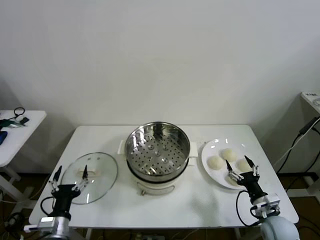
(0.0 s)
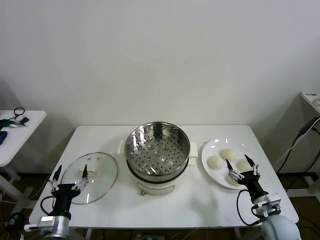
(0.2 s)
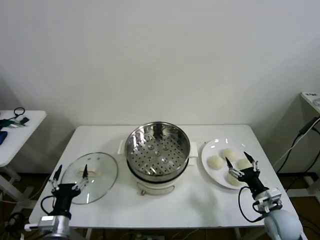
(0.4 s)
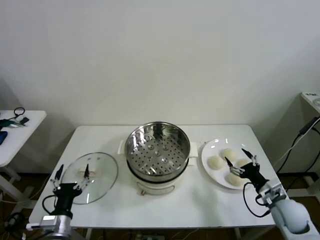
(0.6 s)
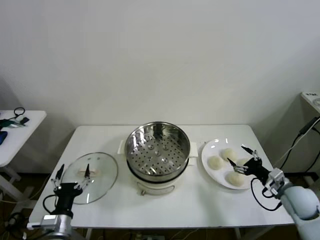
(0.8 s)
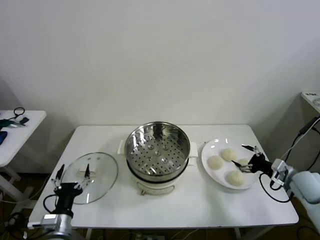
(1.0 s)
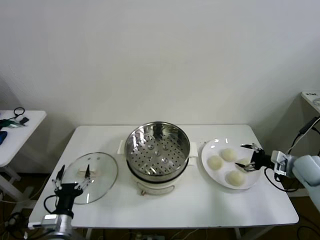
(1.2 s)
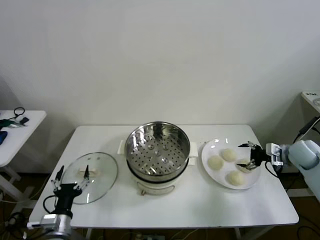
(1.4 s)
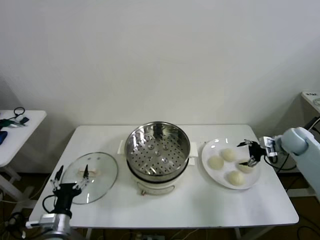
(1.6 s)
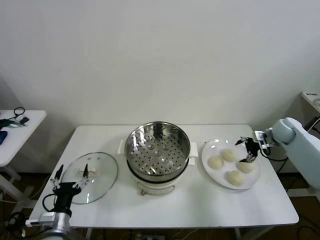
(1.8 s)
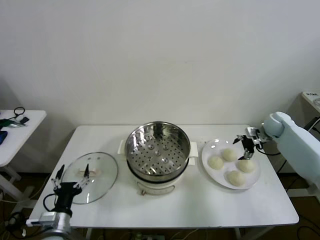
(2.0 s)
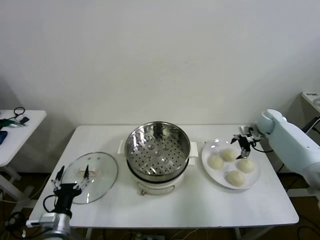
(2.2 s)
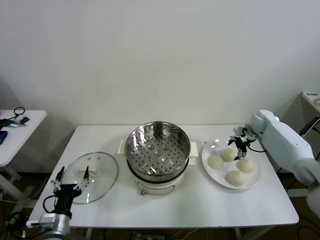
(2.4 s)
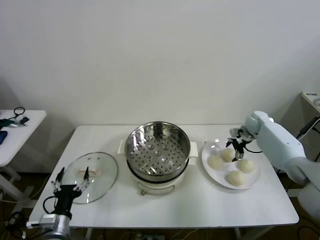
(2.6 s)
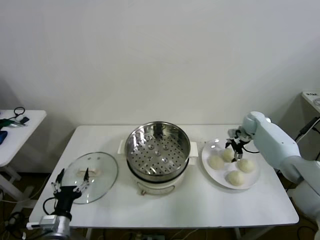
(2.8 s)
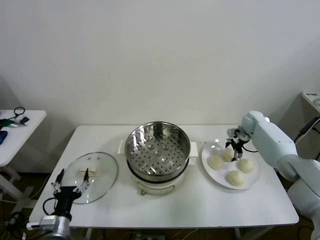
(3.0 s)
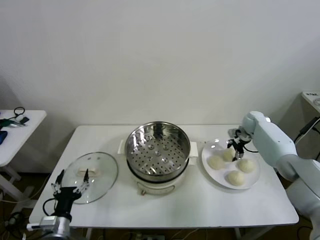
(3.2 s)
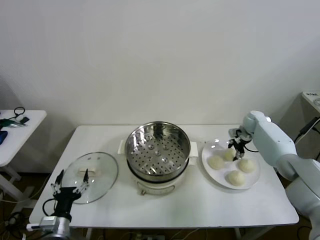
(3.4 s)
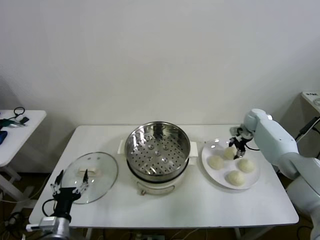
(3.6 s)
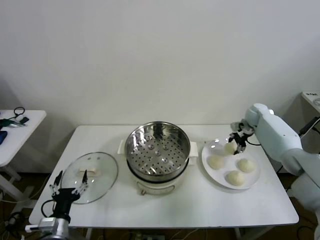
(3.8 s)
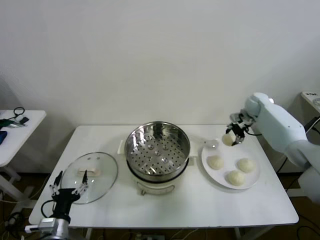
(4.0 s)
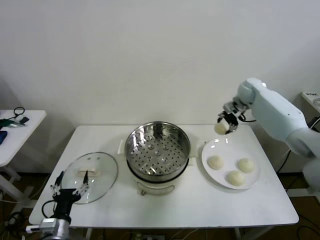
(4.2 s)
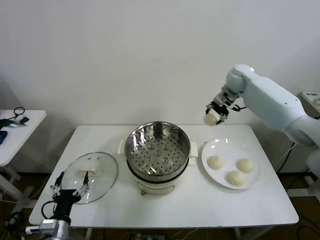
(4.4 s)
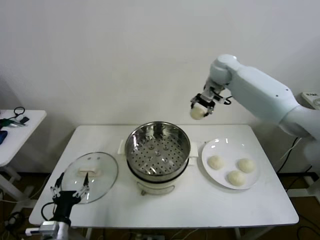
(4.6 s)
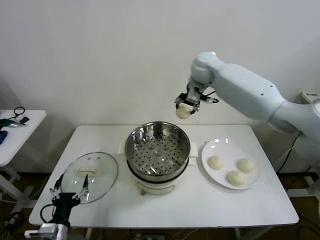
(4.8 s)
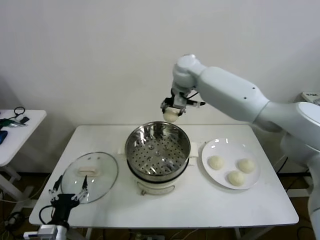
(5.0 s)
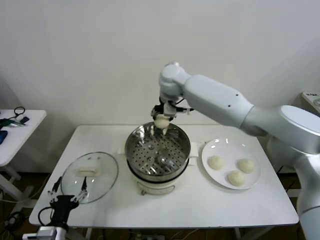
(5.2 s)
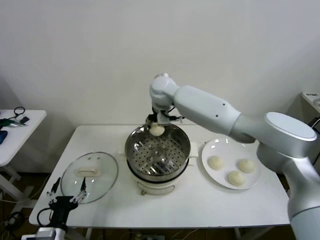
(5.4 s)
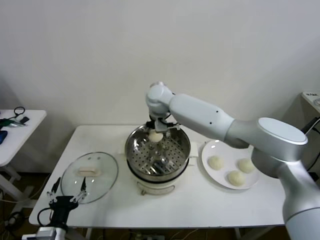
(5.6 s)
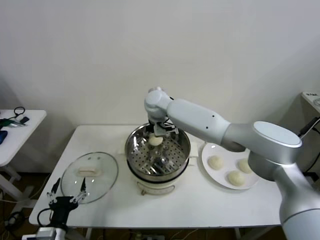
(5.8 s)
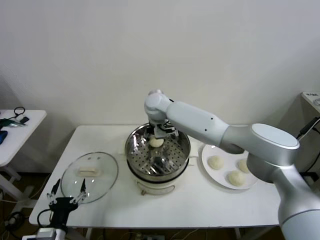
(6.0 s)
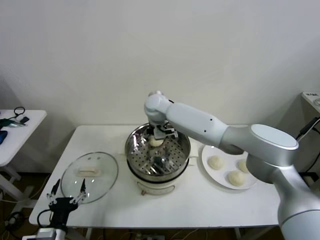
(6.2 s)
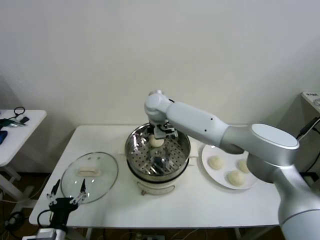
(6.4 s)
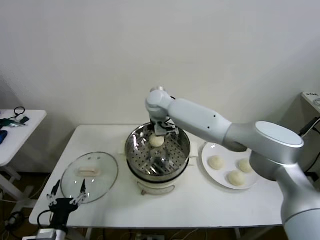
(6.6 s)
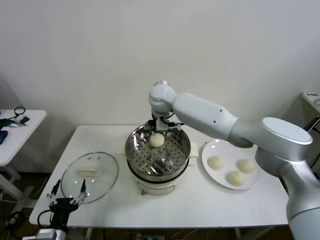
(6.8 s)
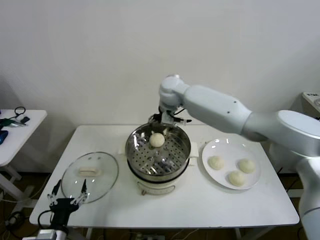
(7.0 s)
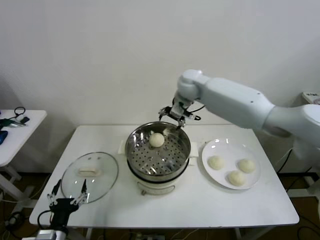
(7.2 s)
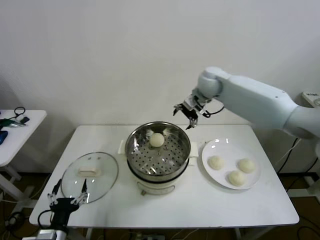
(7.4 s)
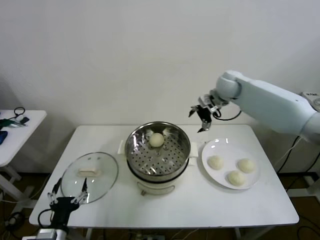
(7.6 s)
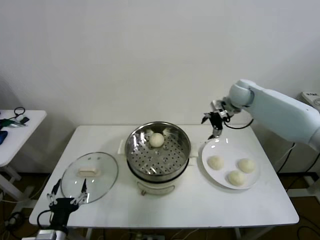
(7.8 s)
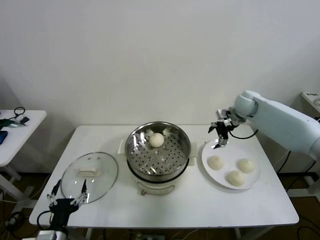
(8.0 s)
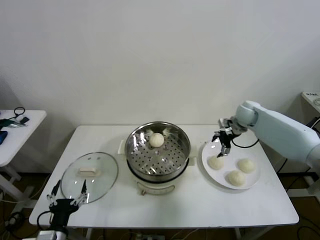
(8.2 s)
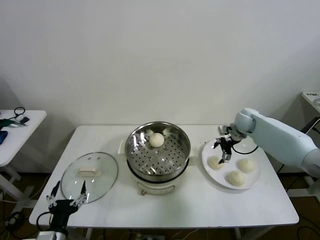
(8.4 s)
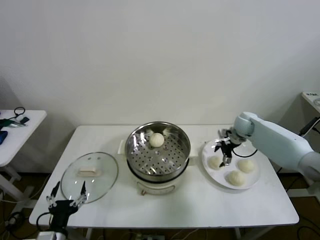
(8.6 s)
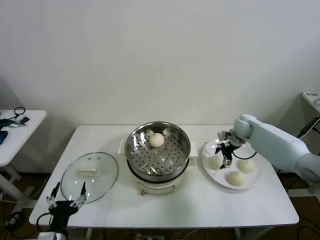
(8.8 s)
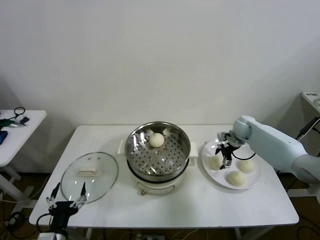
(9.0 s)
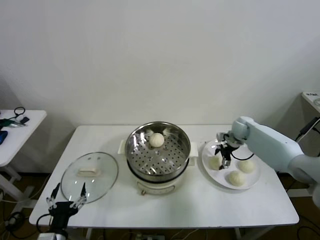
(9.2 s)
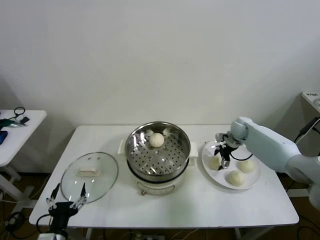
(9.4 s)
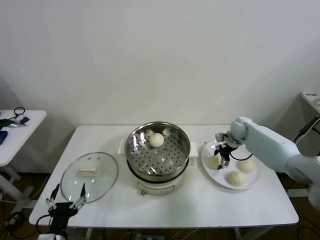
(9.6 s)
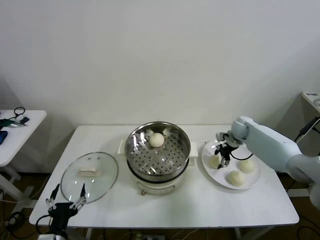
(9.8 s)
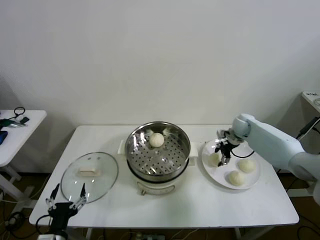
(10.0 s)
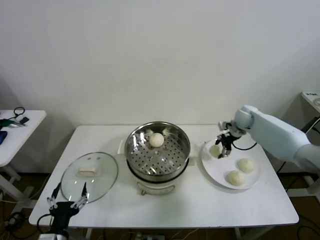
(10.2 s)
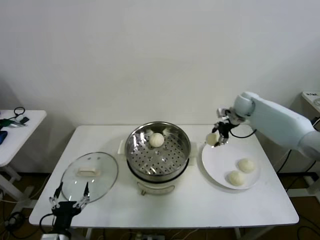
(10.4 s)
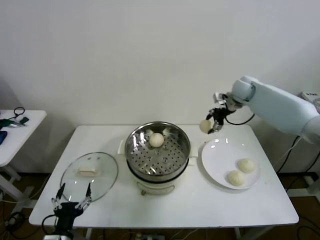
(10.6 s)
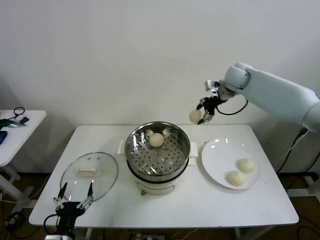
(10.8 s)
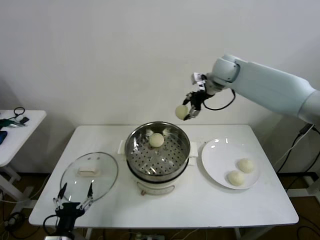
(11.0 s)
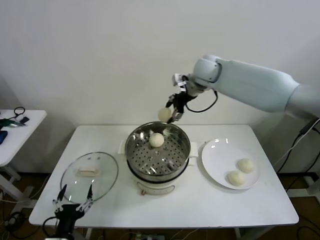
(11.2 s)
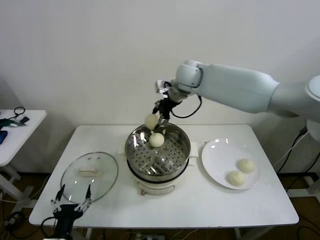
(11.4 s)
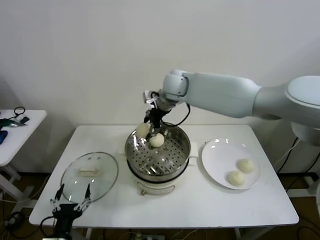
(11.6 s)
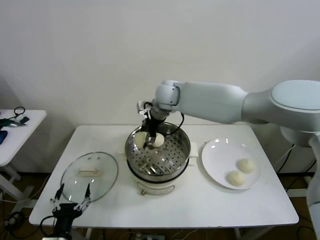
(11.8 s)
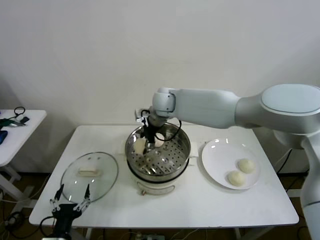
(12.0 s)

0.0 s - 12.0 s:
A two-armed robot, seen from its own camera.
Step, 0.0 s - 3.2 s: Grasp the baozi in the plate with right gripper.
Step, 3.4 s - 6.2 s: Place the baozi on the steamer with right gripper.
Step, 6.4 s - 9.6 s: Grasp the baozi in the plate with right gripper.
1.6 s - 3.0 s: The right gripper is displaced forward and to the left by roughly 15 cm, and closes.
3.0 s - 4.4 s: The right gripper goes roughly 30 cm upward and to the left, and closes.
4.4 s - 6.0 s: The right gripper goes roughly 25 cm to the left.
6.0 s - 7.6 s: The right gripper goes roughly 25 cm to the right, and opens up.
7.6 s - 9.0 s: The right gripper moves downward and to the right, about 20 cm.
9.0 s - 10.4 s: The right gripper travels upward by about 10 cm, and closes its fingers.
10.4 s - 12.0 s: The right gripper goes roughly 30 cm to the left.

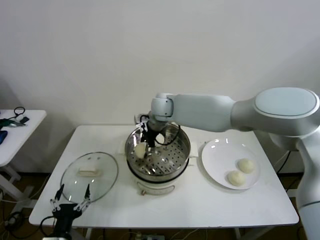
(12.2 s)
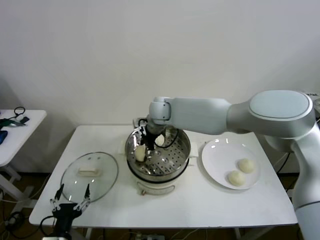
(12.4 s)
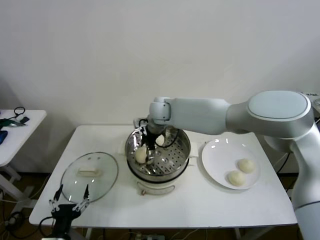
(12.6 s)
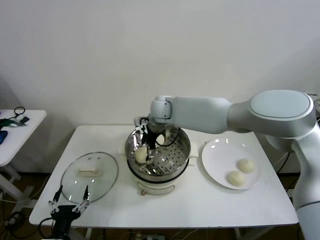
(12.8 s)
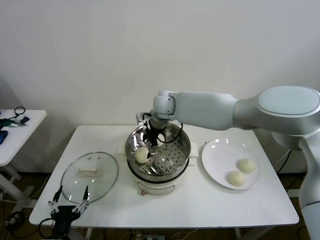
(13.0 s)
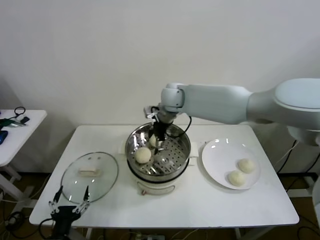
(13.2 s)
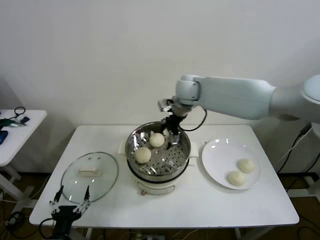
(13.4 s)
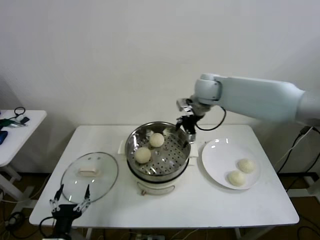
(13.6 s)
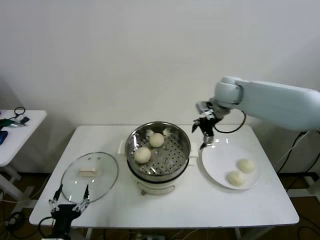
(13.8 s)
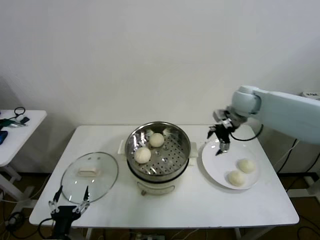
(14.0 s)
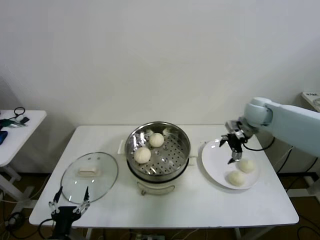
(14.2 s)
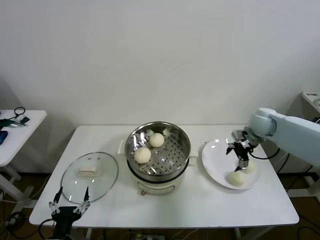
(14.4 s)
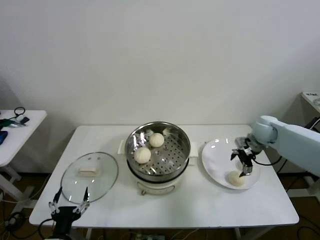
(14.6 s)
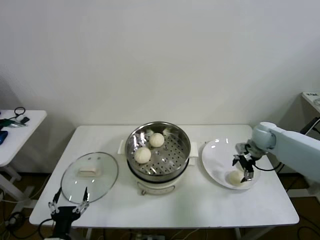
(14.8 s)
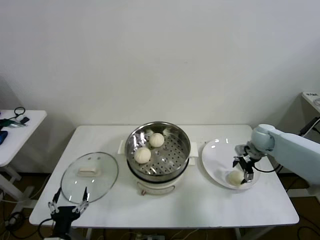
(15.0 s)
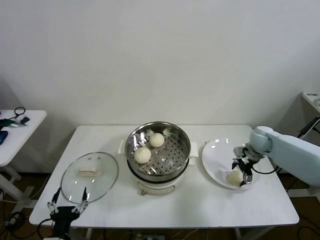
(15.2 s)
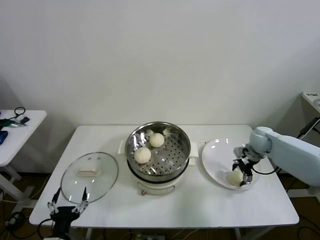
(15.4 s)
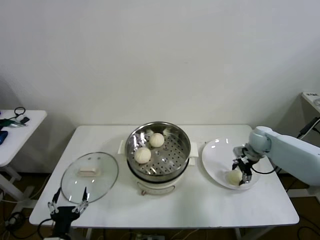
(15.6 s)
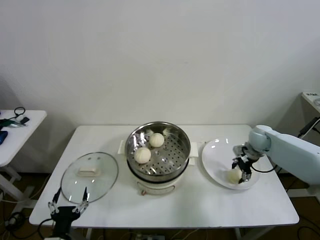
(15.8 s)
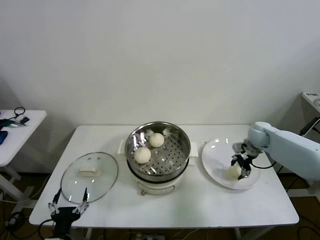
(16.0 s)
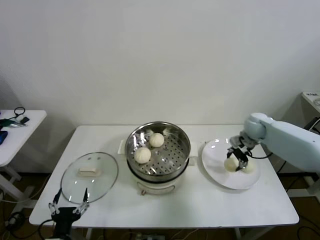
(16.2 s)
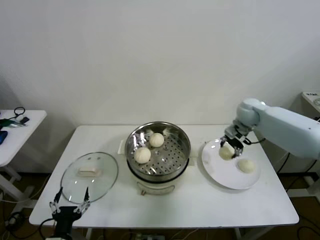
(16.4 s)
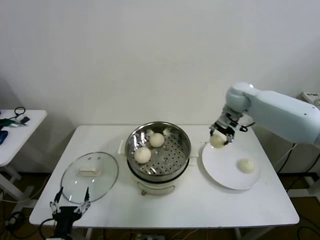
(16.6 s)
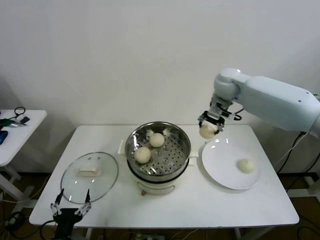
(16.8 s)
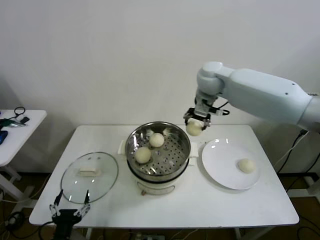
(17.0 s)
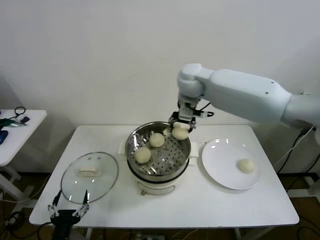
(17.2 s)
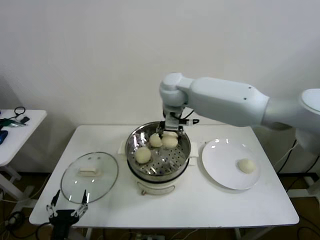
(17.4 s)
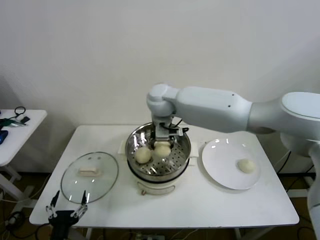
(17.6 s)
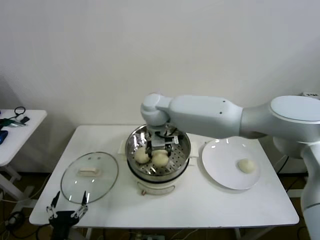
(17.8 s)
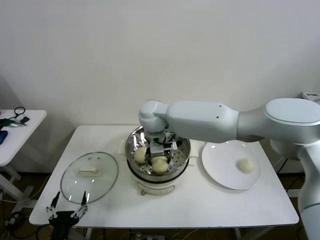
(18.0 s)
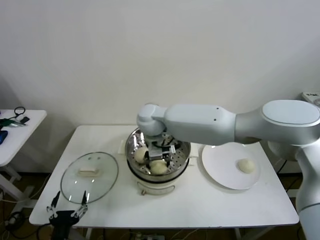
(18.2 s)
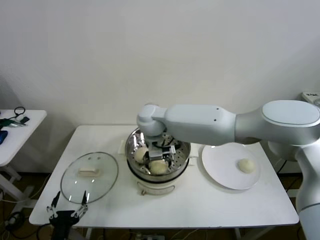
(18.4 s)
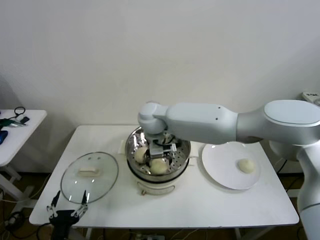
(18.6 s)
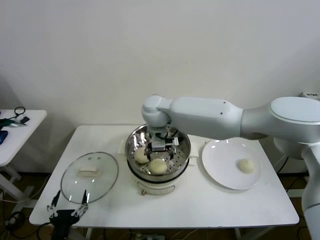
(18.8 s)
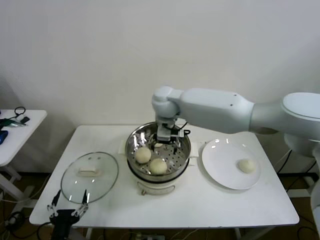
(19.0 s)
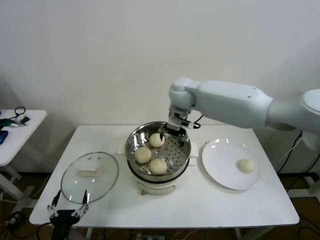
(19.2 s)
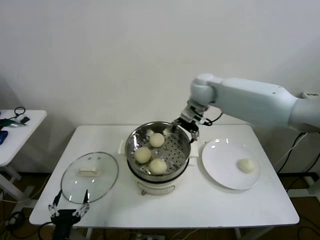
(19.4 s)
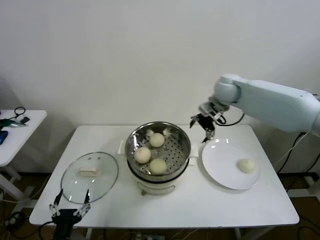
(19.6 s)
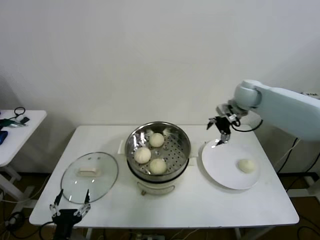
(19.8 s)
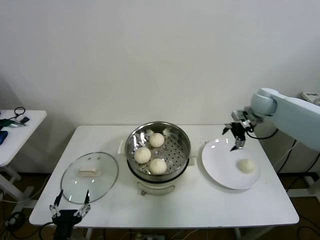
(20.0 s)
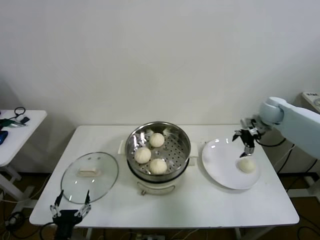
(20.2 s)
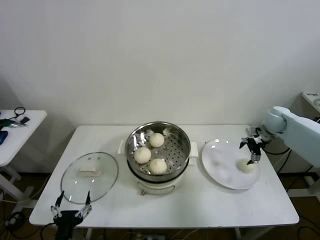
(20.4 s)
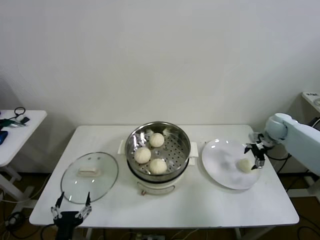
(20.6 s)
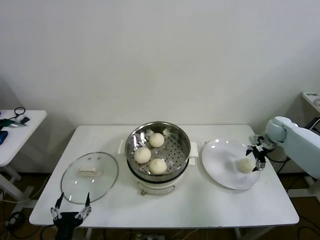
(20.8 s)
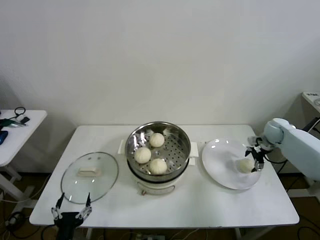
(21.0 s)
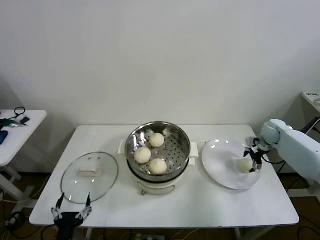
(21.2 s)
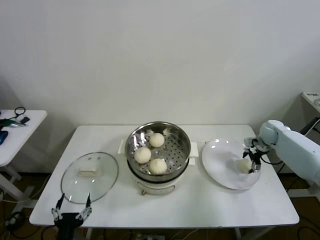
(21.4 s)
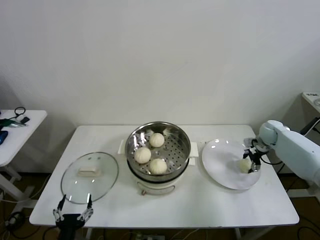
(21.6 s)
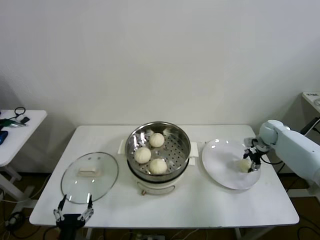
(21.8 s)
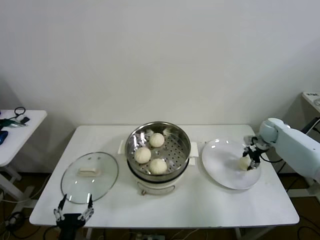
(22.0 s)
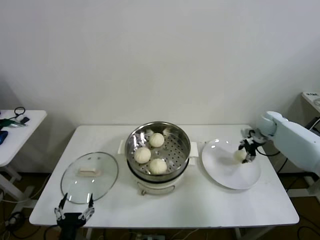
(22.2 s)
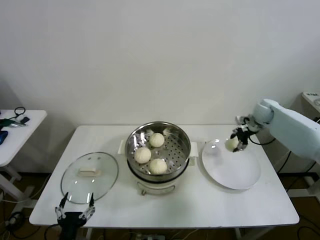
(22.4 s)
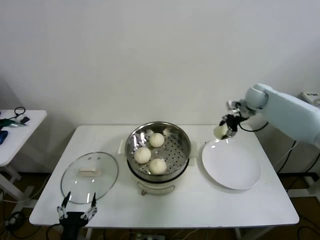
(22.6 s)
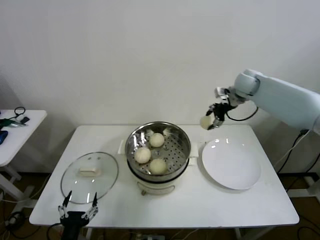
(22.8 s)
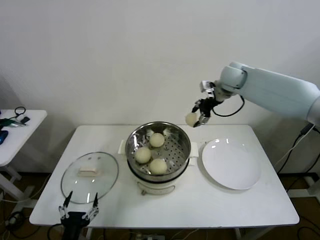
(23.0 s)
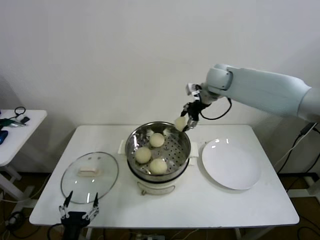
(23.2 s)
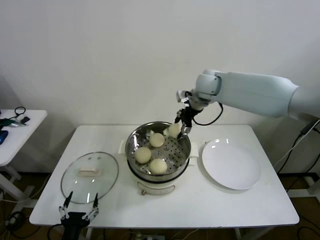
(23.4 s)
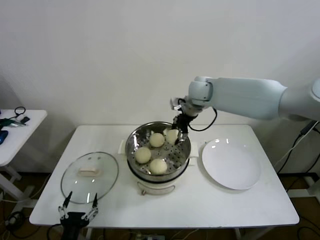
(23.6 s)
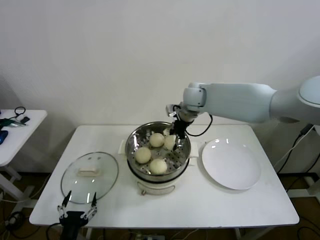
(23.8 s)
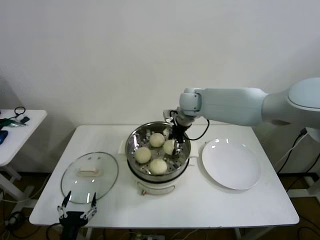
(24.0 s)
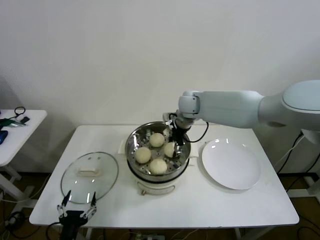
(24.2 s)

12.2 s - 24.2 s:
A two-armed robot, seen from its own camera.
Step, 12.6 s - 15.6 s: Grasp the baozi in the plate with right gripper.
Step, 15.8 s - 18.4 s: Place the baozi on the steamer with right gripper.
Step, 18.8 s - 21.6 s: Grasp the baozi in the plate with right gripper.
12.2 s - 13.8 s: The right gripper heads to the right, covering some 25 cm, and opens its fingers.
13.8 s - 15.2 s: The right gripper travels downward and to the right by about 25 cm.
15.2 s - 16.6 s: The right gripper goes about 20 cm upward and to the left, and closes up.
16.6 s - 18.2 s: The right gripper moves to the left, approximately 30 cm.
18.2 s - 19.8 s: The right gripper heads to the right, covering about 35 cm, and opens up.
19.8 s - 21.2 s: The right gripper travels downward and to the right by about 25 cm.
21.2 s - 22.6 s: The right gripper shifts roughly 15 cm upward and to the left, and closes.
22.6 s - 24.2 s: The right gripper moves to the left, some 25 cm.
